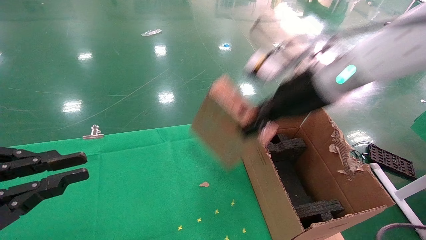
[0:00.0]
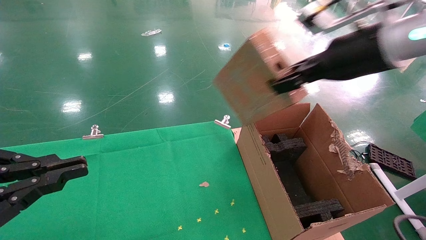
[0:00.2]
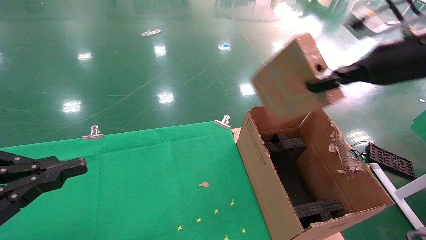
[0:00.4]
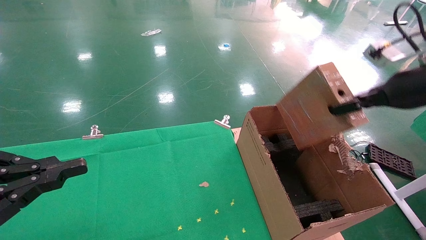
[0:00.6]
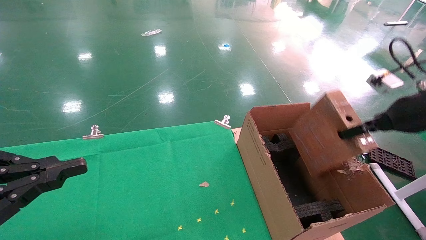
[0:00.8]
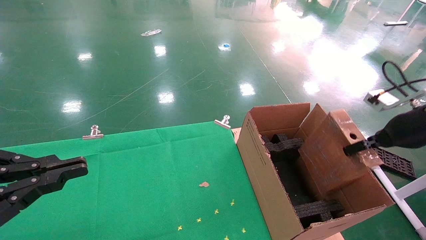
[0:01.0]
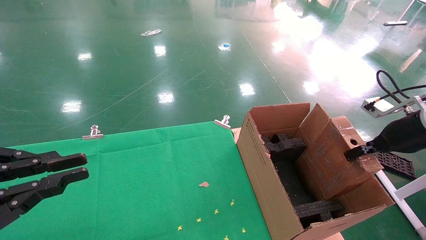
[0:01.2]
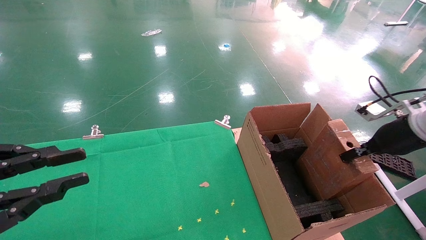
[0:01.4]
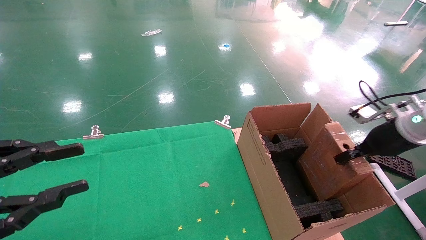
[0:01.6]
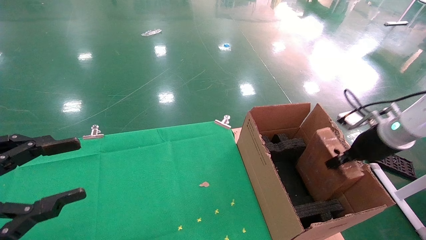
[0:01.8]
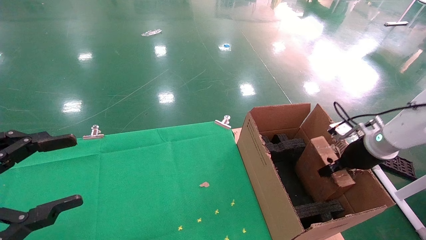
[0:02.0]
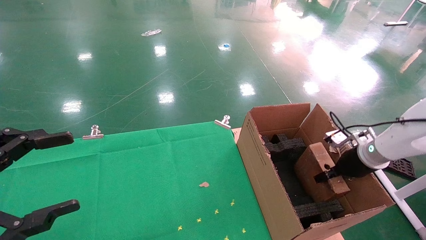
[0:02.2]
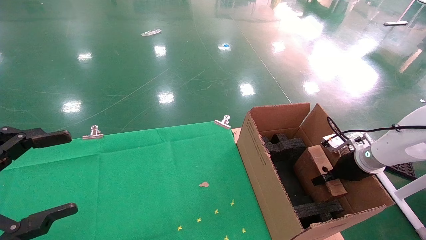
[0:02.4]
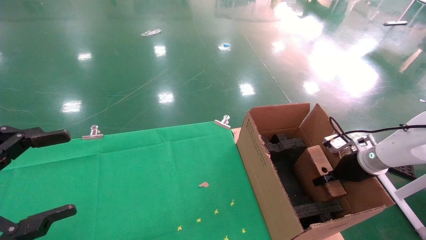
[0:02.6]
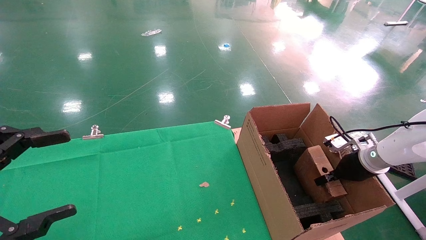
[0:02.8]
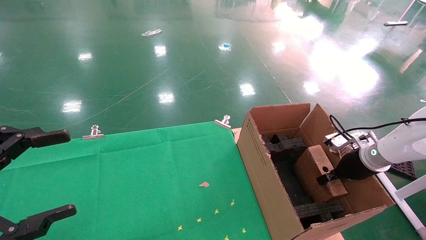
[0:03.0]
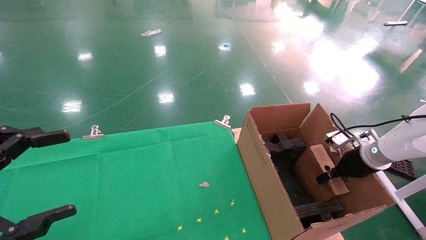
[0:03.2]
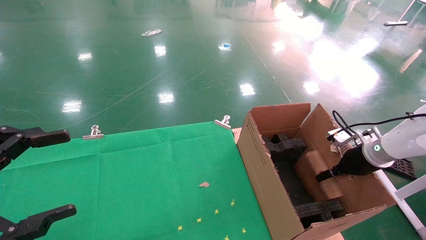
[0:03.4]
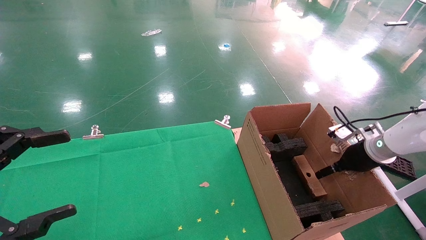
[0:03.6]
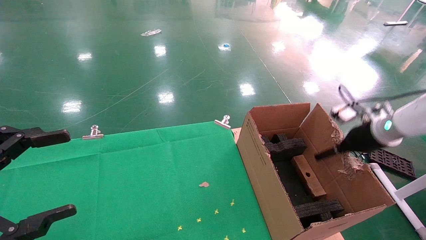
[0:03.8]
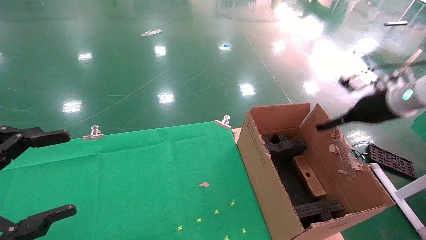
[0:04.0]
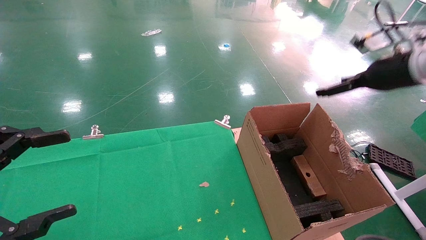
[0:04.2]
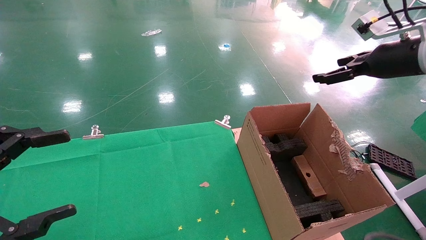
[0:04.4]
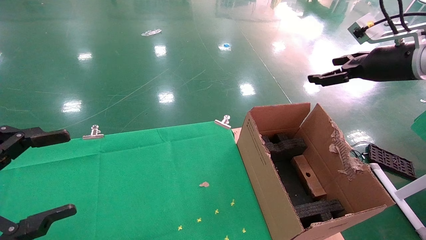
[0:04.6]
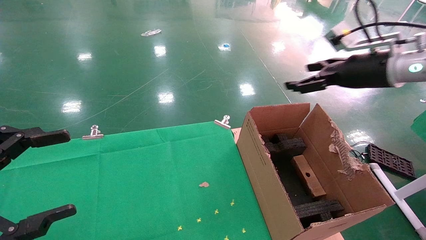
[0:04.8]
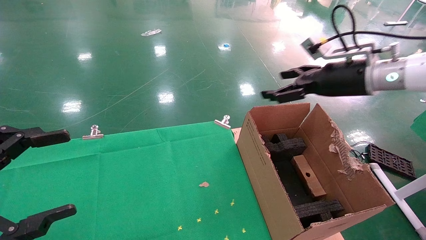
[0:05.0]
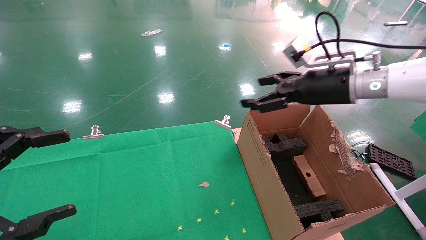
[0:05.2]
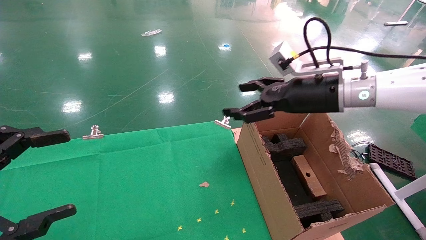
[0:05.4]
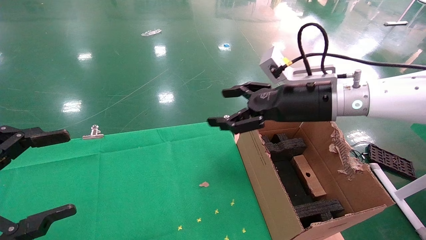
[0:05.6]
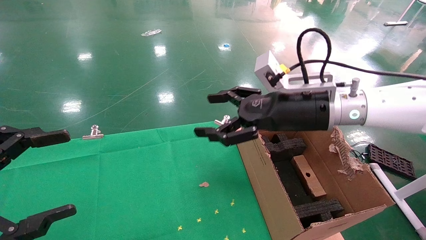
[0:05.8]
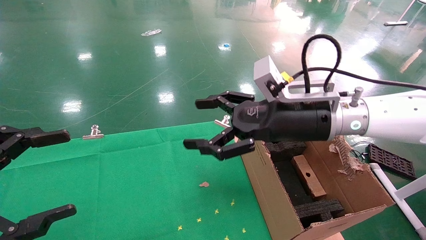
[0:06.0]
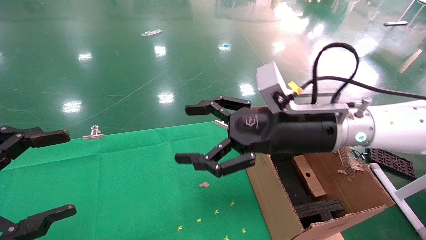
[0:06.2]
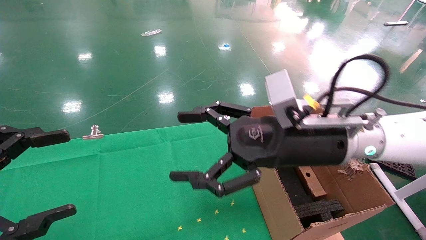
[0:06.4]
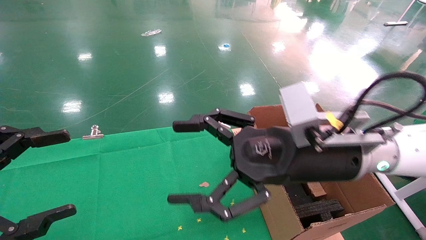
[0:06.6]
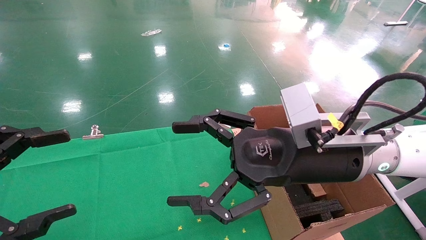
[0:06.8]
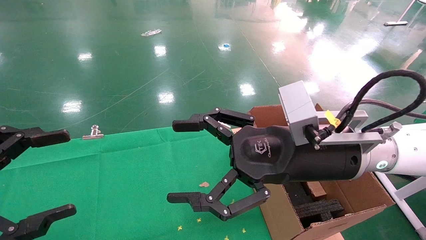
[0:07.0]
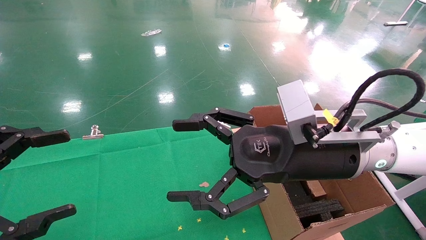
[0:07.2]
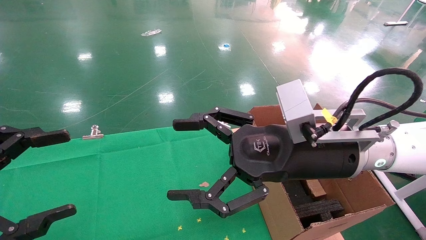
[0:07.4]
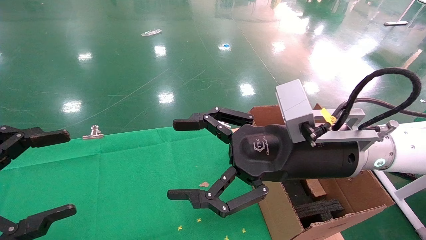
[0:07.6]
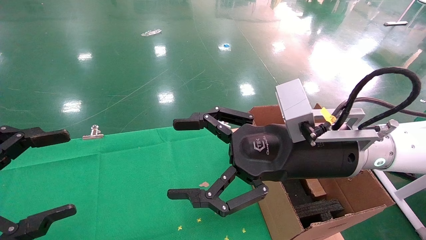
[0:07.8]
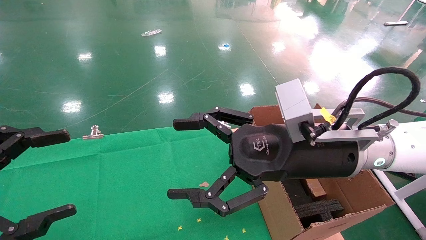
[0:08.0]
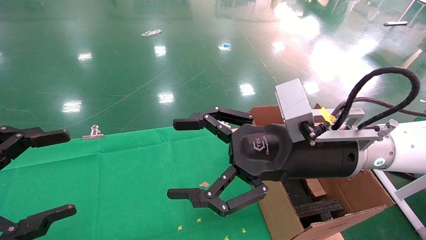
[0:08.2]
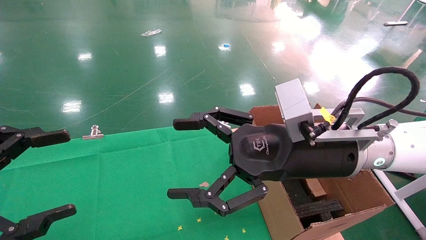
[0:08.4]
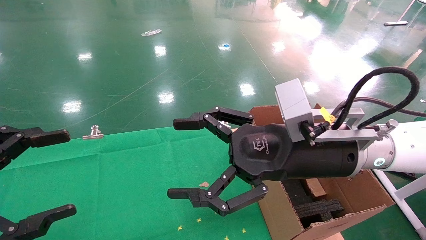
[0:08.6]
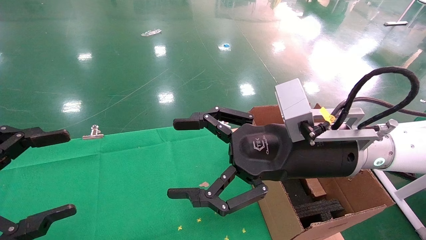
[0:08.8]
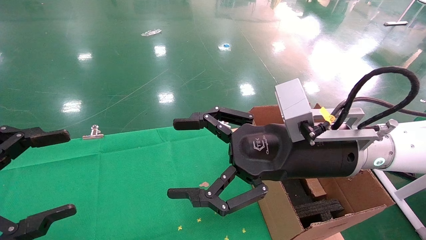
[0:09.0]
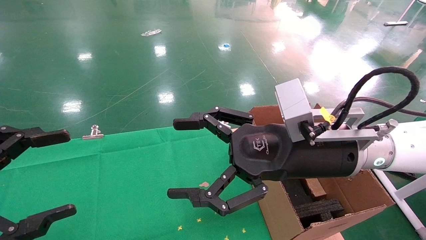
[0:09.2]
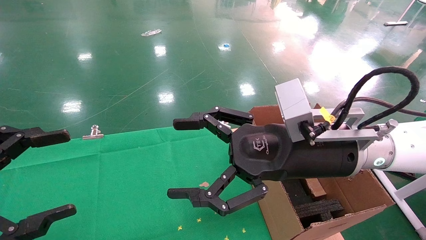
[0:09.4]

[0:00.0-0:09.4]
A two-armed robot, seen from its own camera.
Task of the whole recording: using a robotic arm to pick up a cardboard box and palace it the carton.
Step, 0:00.0 to 0:03.8: Place the mouse and the power cord paper box into the container.
0:00.0 to 0:01.6: The right gripper goes about 25 cm to the right and downward.
0:01.6 to 0:03.2: The left gripper opens its fingers. The right gripper heads downward, covering approximately 10 cm.
0:03.2 to 0:04.8: The right gripper shifts about 20 cm upward, and opens up.
0:04.8 to 0:06.2: The right gripper goes some 20 cm to the left and backward.
0:06.2 to 0:07.8: The grippers stay close to where they were, moving slightly.
0:07.8 to 0:09.4: The two grippers keep their place.
